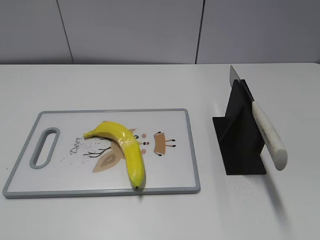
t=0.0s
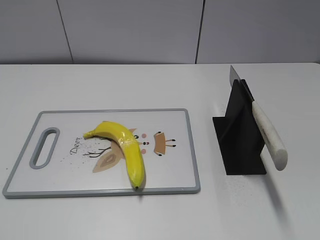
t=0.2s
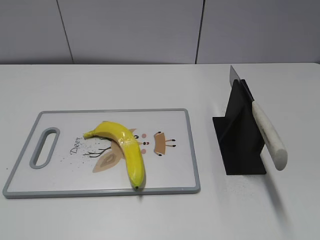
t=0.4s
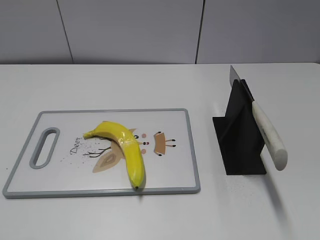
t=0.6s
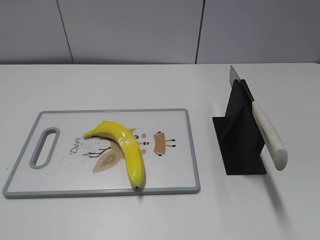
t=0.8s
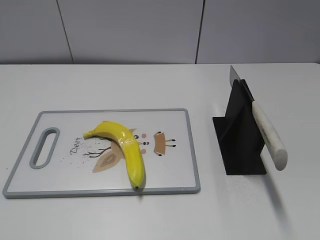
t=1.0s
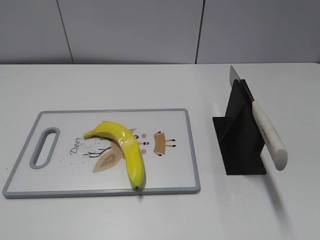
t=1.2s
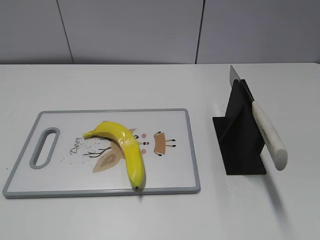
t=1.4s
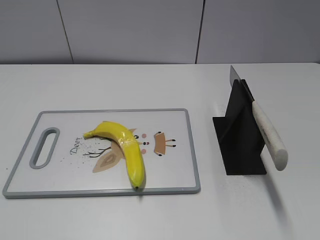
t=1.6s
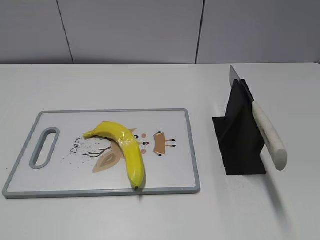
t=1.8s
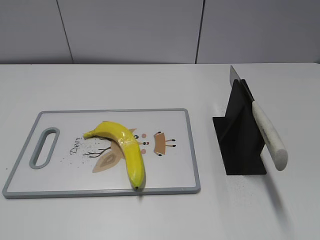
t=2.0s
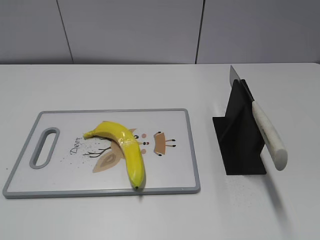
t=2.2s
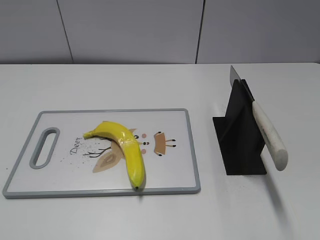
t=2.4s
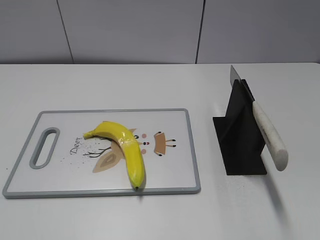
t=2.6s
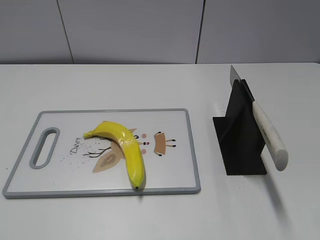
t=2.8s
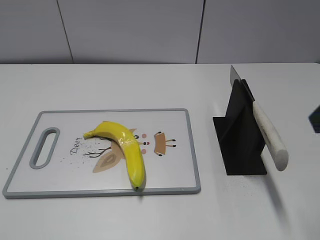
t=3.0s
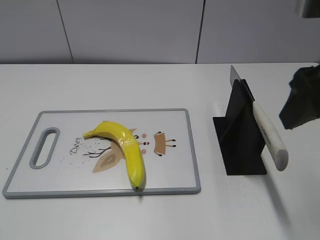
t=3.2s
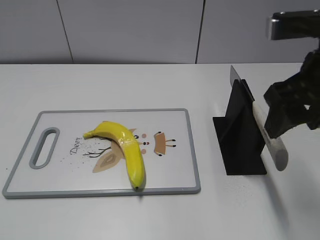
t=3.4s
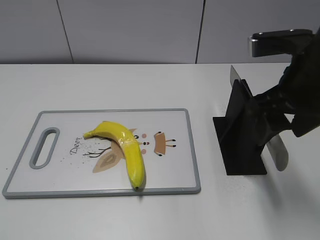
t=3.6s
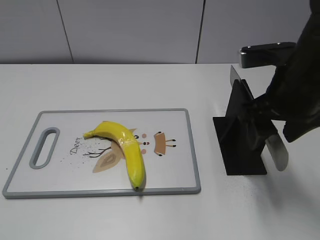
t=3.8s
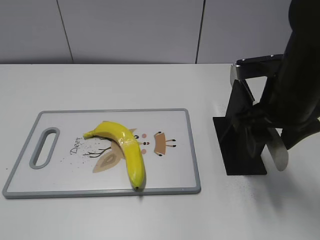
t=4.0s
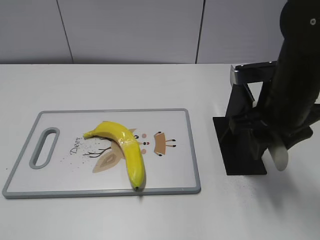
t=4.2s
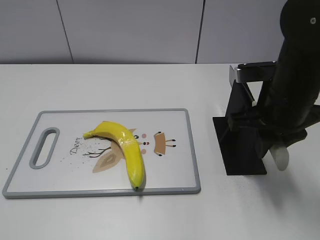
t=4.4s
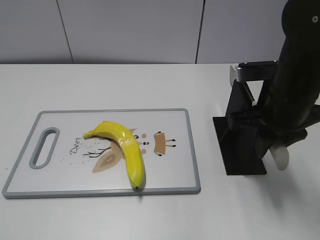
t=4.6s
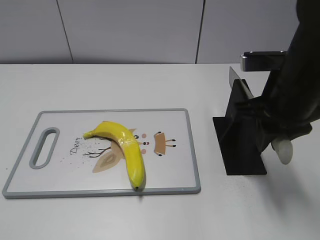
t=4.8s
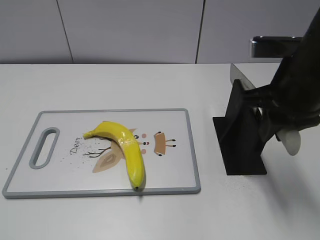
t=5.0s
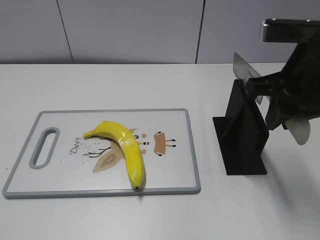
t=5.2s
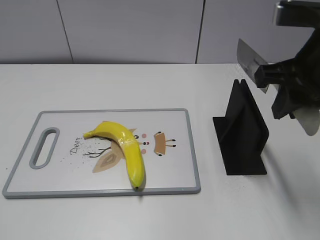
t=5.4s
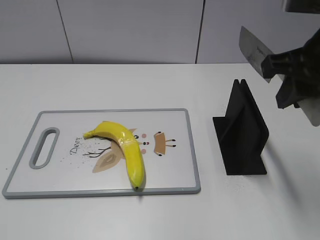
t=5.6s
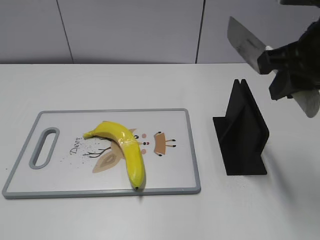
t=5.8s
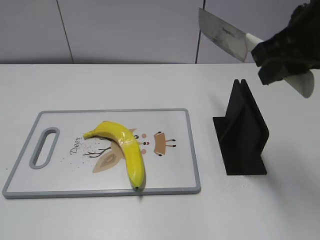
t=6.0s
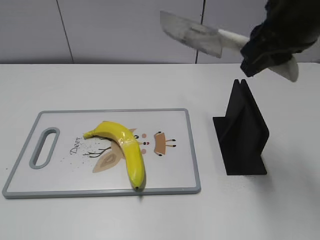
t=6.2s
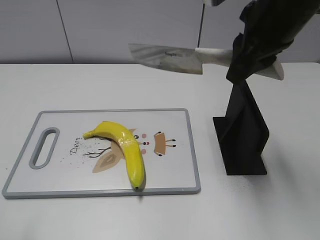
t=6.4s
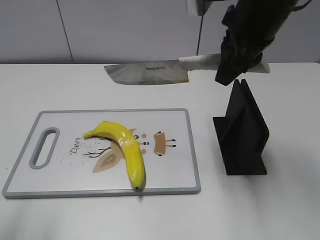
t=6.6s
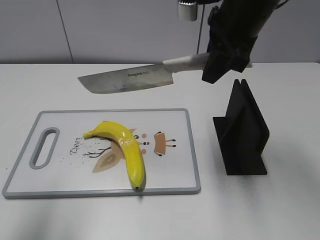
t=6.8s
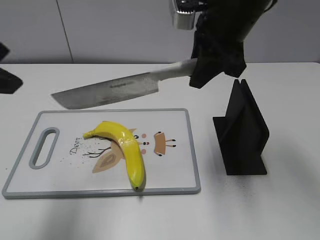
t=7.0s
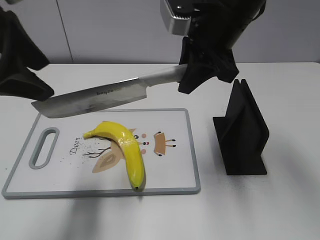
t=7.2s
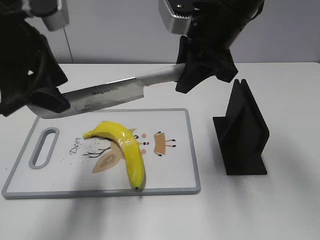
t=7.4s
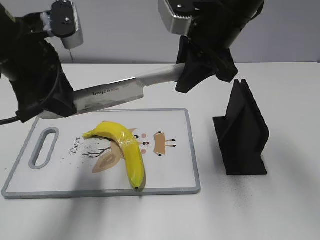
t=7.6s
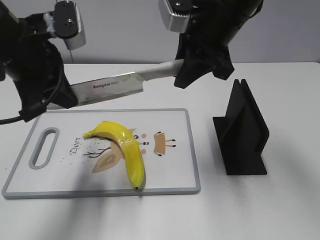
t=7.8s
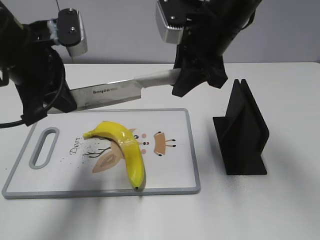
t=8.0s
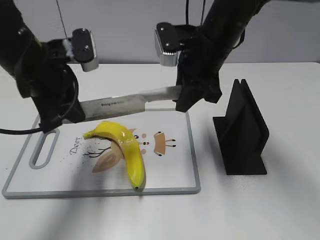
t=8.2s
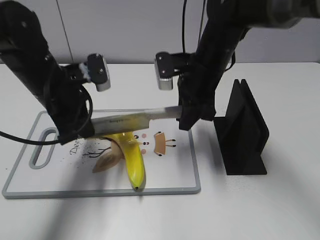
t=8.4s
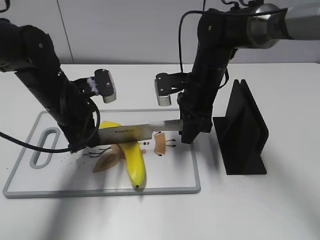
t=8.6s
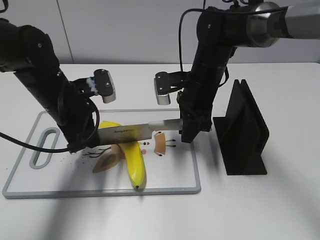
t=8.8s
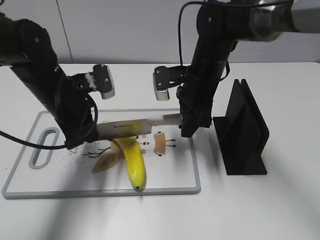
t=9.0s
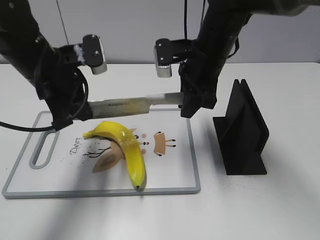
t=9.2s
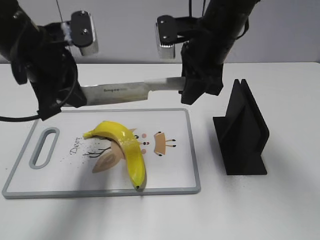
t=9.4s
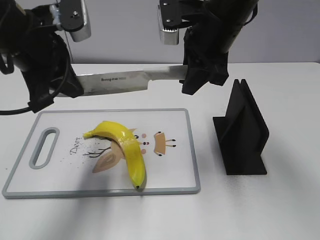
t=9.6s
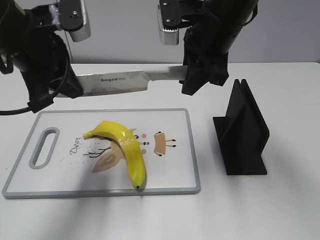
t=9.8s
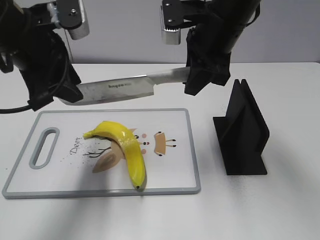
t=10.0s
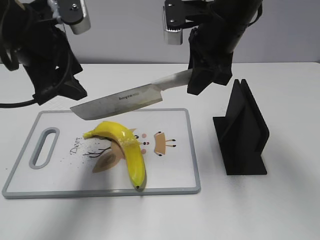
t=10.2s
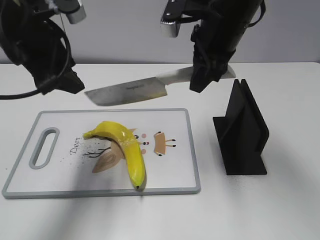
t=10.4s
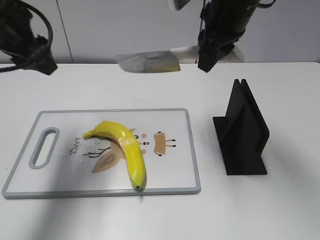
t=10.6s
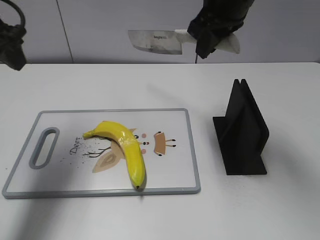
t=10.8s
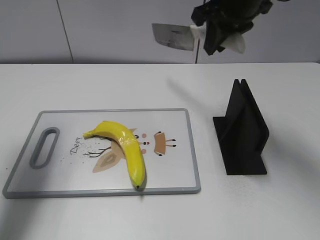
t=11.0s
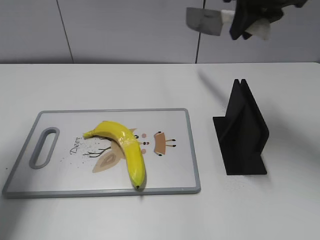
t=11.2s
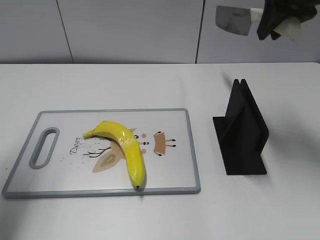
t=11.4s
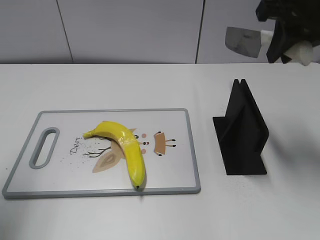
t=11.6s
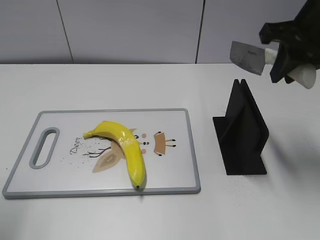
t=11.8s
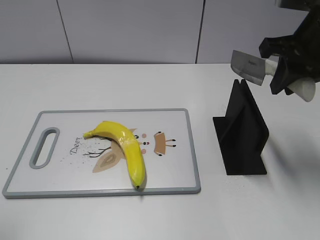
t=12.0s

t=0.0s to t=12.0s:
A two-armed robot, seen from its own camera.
Task of the whole recording: cut plastic banana.
Step, t=0.0s to t=5.4s: Grab the knife handle with your right hand.
Step, t=5.8s to t=9.6s: Lift the knife with your right hand.
Step, t=9.8s to t=10.8s: Cut the banana with your right hand.
t=3.0s to t=4.4s: The right gripper goes about 15 cm downward, forward and to the left, and closes its fingers.
t=4.4s to t=6.0s: The right gripper shifts some 10 cm upward.
t=6.0s to t=7.6s: The right gripper travels forward and to the left by approximately 15 cm; the left gripper shifts approximately 30 cm forward and to the right.
t=7.6s to t=9.0s: Both grippers move downward, roughly 15 cm. The left gripper closes.
t=9.0s to t=10.4s: The grippers both shift upward by approximately 15 cm. The left gripper opens up.
t=10.4s to t=12.0s: The right gripper shifts approximately 15 cm to the right and backward. Meanwhile the left gripper is displaced backward and to the left by some 25 cm.

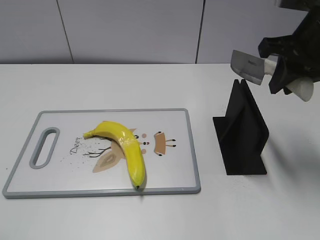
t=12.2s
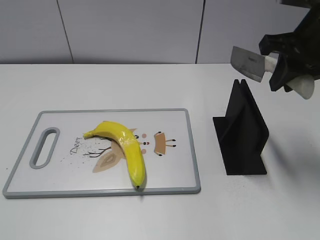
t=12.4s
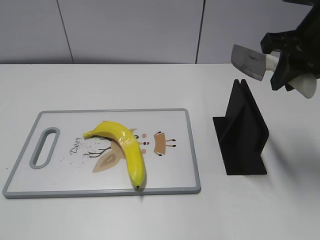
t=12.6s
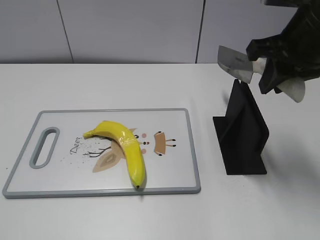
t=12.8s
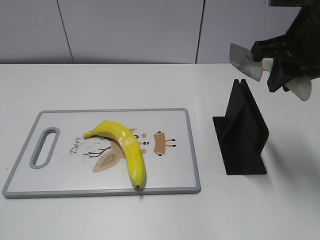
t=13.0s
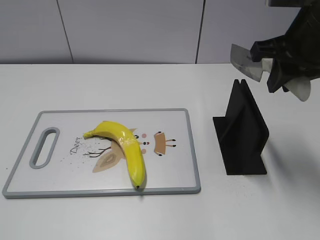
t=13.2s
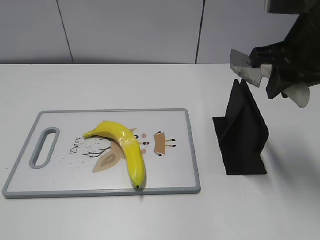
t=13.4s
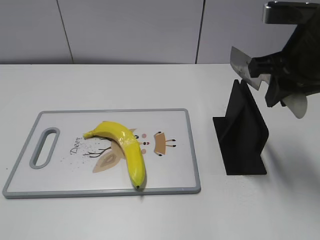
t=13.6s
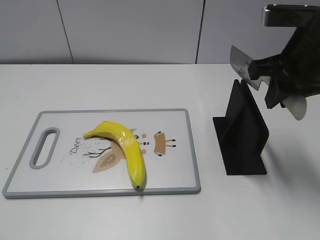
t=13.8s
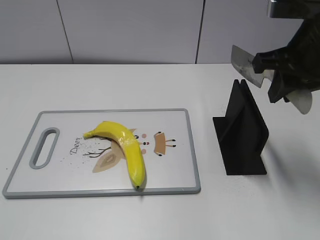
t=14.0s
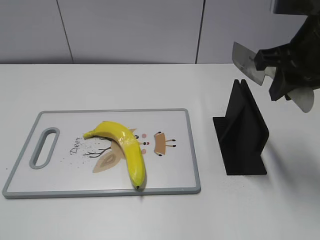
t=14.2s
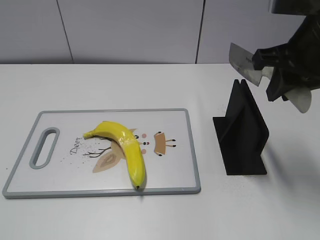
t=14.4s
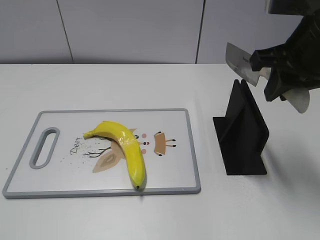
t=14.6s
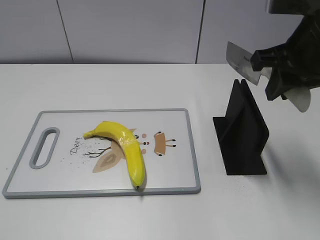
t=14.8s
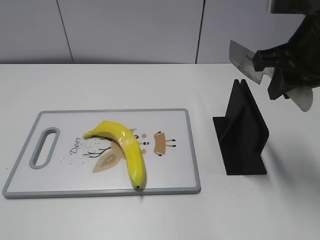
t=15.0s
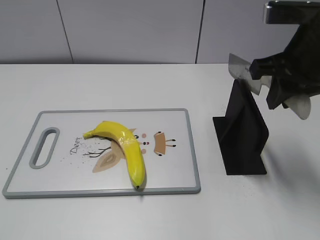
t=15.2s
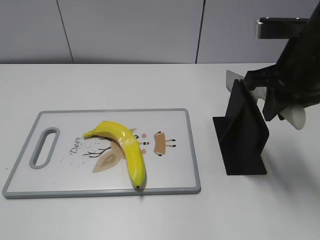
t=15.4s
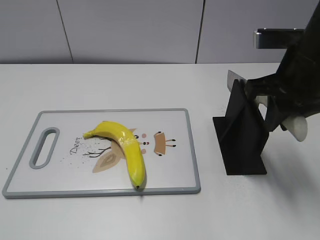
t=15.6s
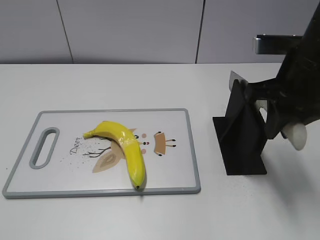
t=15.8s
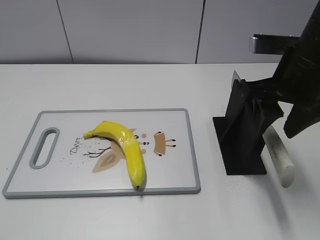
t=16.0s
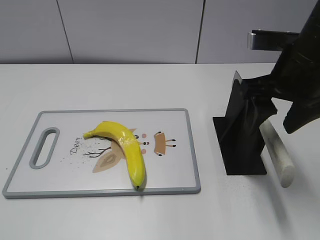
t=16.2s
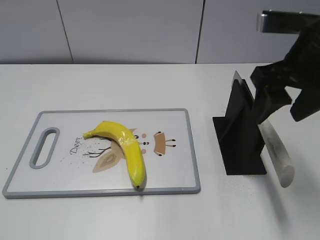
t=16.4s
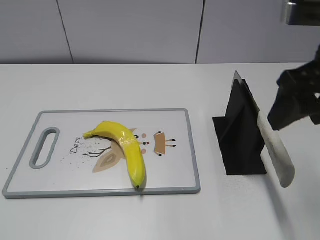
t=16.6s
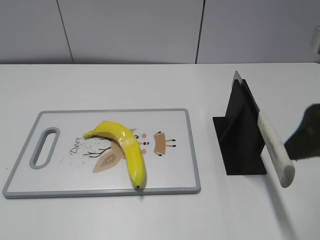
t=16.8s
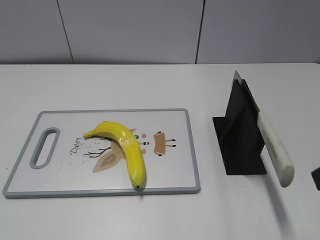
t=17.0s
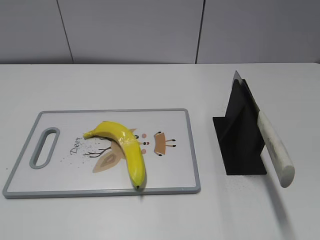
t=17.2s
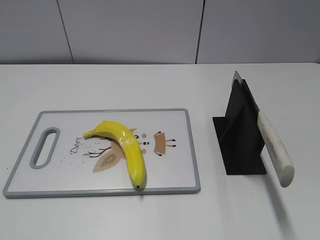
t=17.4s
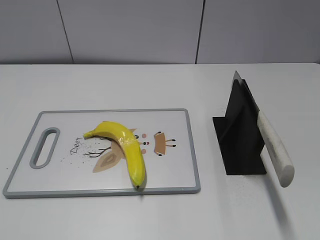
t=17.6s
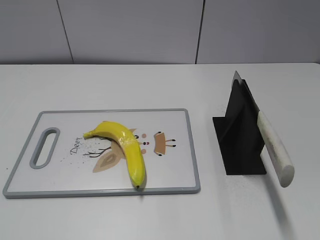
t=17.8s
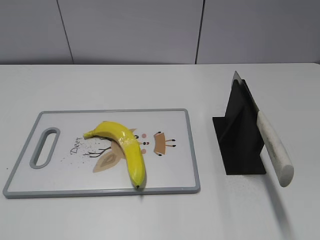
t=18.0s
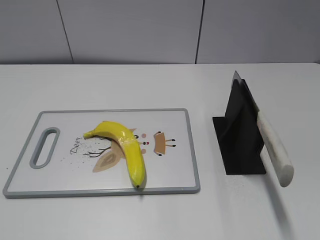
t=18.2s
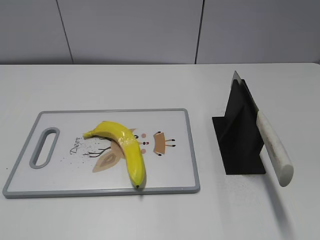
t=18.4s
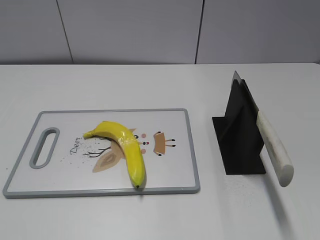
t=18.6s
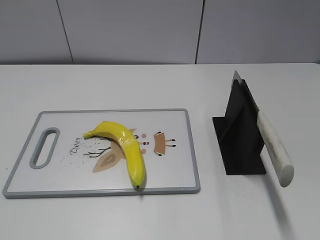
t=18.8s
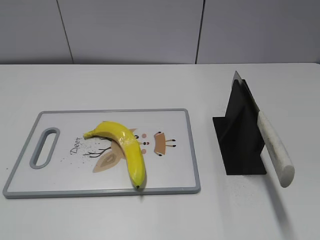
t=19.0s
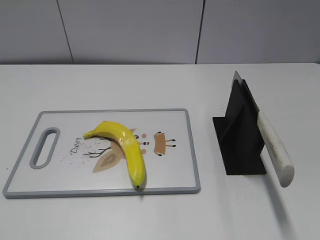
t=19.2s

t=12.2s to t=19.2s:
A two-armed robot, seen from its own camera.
Task of the whole recording: cut plastic banana.
Step, t=12.2s to t=19.2s: Place the knife on the storage rack with your right hand.
t=13.6s to t=15.0s: There are only small adjustments of the grippers.
t=15.0s to t=16.4s: The right gripper opens its fingers.
t=16.4s to t=17.8s: The right gripper heads backward and to the right, covering roughly 25 cm.

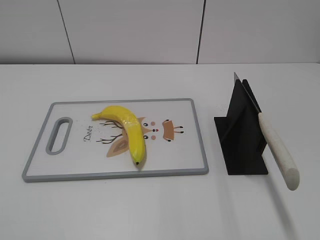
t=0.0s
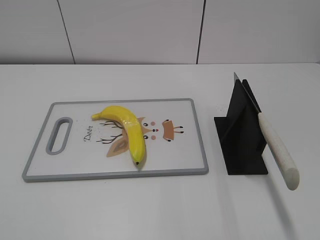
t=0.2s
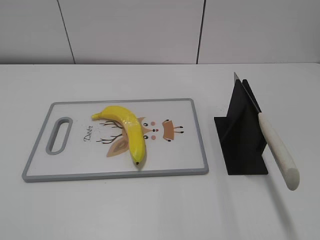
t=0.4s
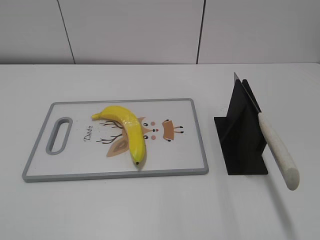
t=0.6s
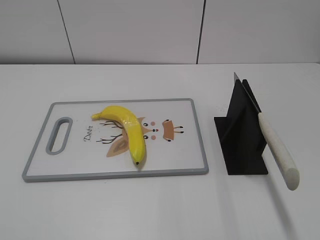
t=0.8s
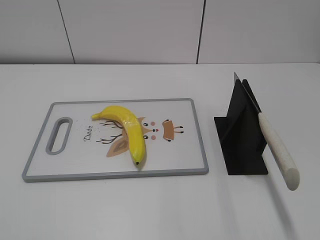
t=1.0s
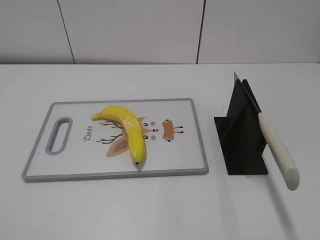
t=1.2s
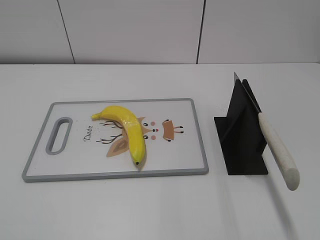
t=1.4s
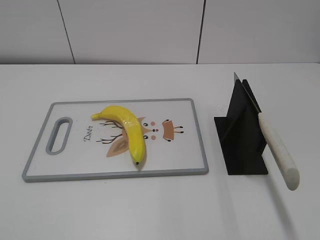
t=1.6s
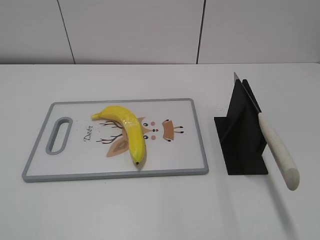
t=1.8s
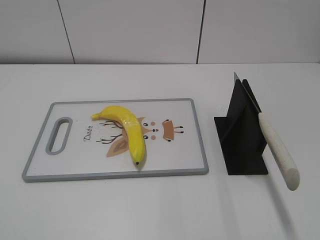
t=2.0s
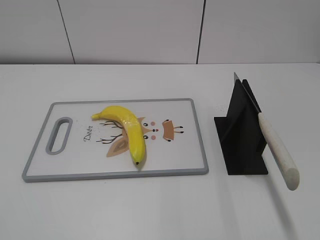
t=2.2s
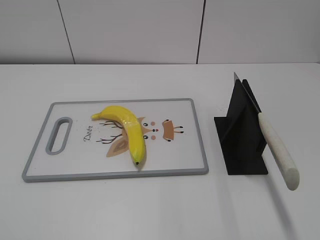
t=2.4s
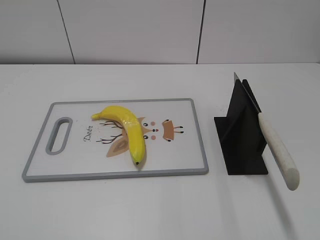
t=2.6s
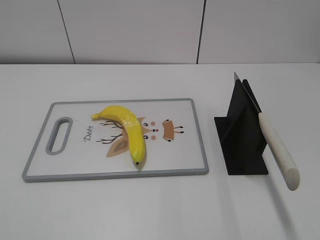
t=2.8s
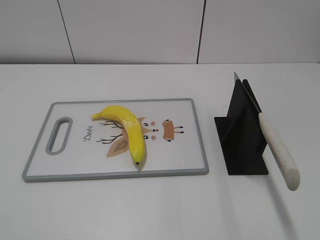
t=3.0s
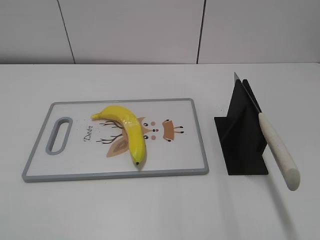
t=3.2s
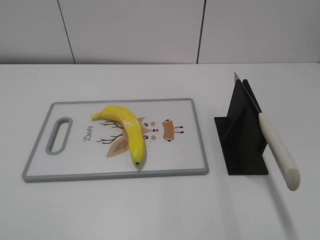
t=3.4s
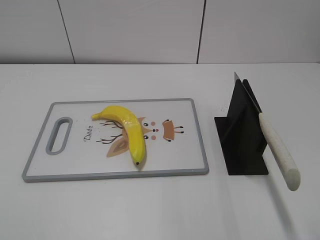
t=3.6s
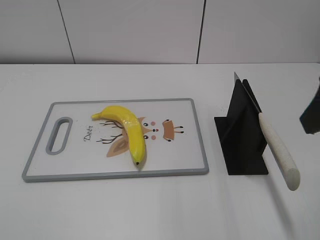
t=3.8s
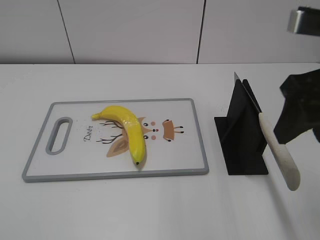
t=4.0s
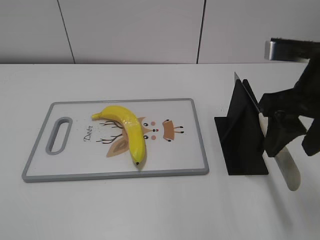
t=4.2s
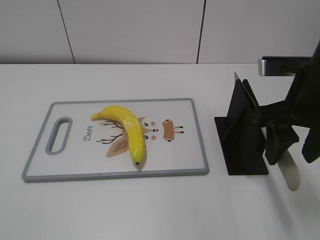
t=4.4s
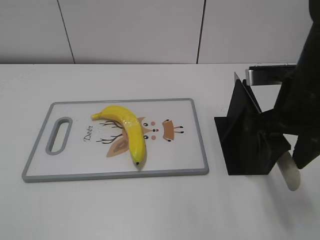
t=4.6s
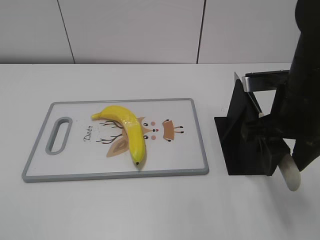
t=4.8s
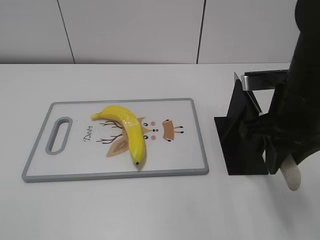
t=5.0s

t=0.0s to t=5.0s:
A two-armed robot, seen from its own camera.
Task of the whole recording: cut plastic banana.
t=3.4s to t=5.0s: The right gripper goes roughly 20 cm forward, downward and to the left, and closes up.
